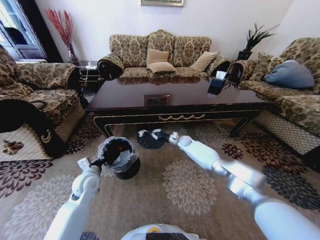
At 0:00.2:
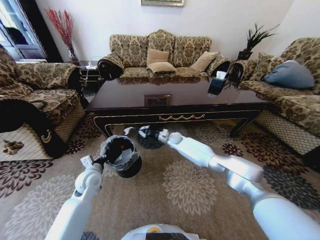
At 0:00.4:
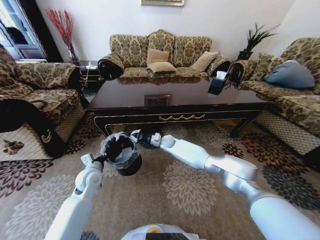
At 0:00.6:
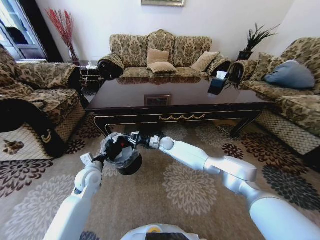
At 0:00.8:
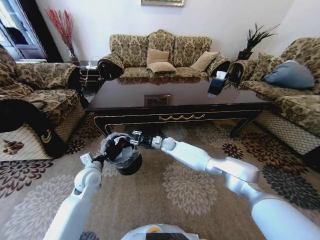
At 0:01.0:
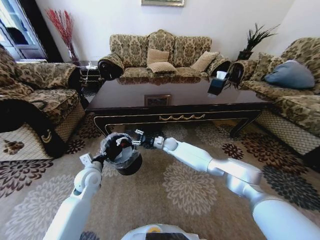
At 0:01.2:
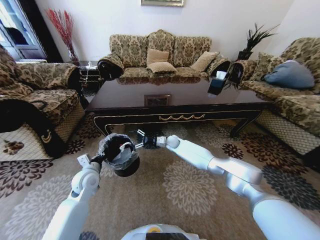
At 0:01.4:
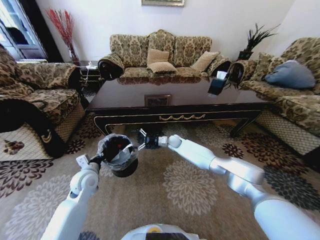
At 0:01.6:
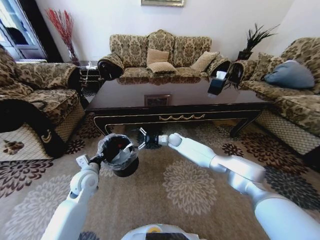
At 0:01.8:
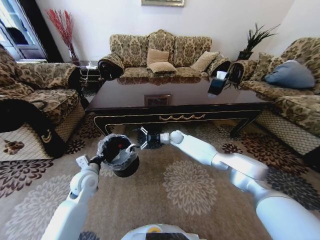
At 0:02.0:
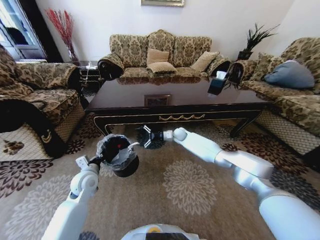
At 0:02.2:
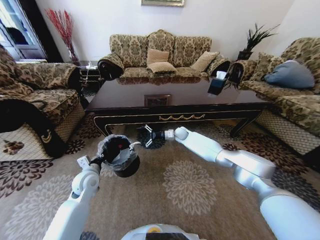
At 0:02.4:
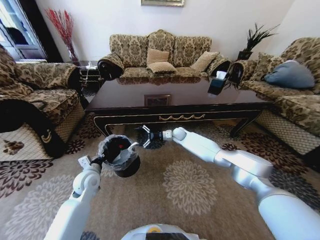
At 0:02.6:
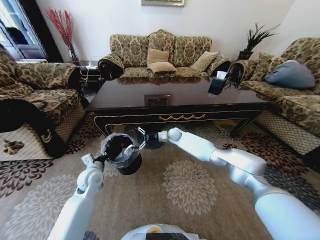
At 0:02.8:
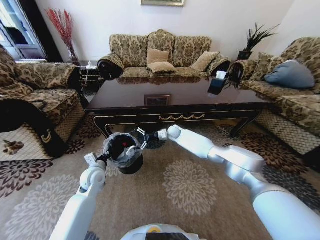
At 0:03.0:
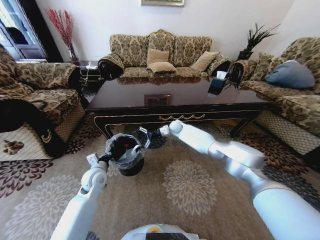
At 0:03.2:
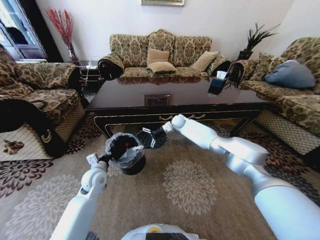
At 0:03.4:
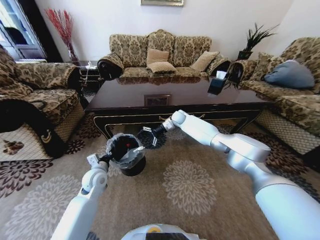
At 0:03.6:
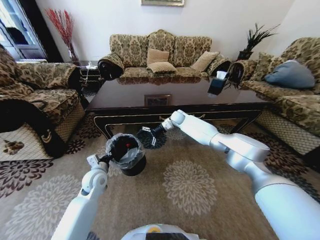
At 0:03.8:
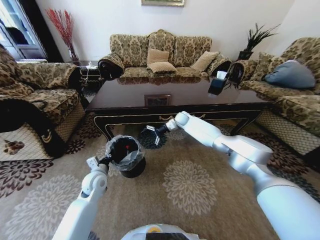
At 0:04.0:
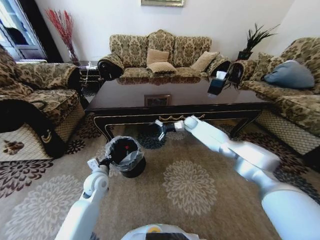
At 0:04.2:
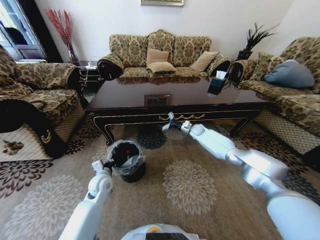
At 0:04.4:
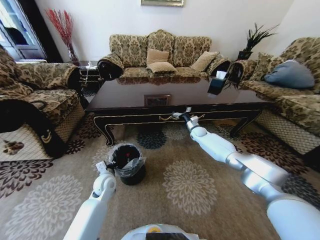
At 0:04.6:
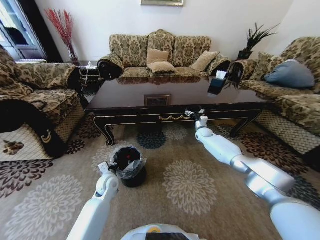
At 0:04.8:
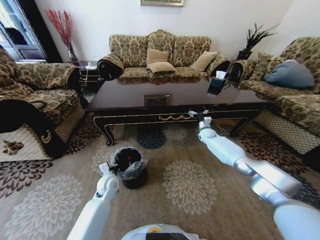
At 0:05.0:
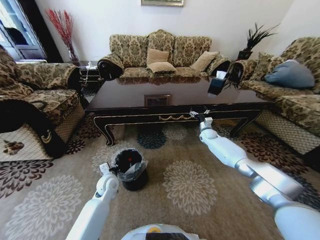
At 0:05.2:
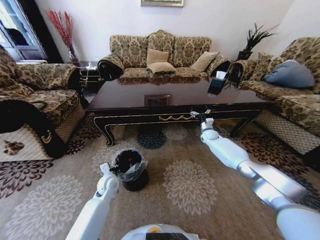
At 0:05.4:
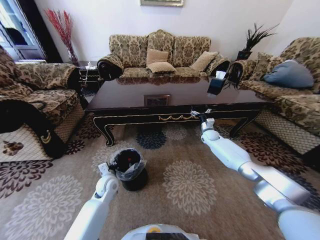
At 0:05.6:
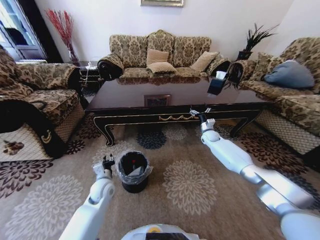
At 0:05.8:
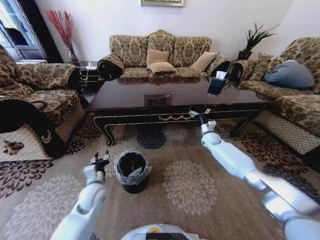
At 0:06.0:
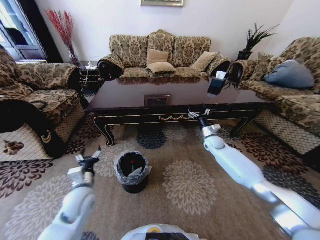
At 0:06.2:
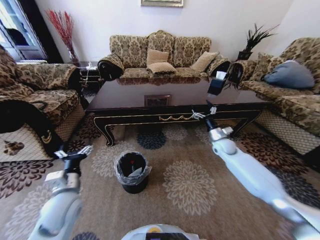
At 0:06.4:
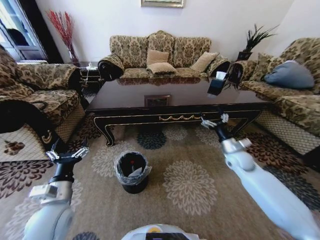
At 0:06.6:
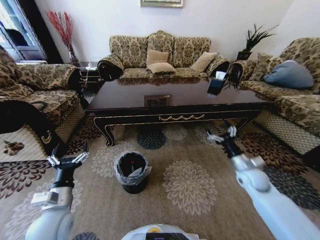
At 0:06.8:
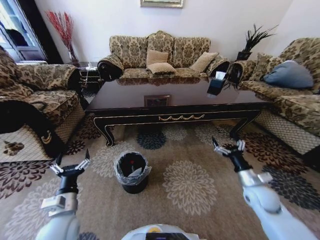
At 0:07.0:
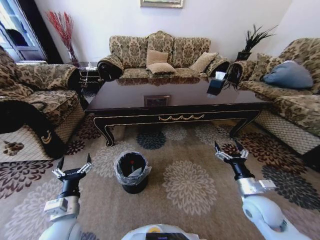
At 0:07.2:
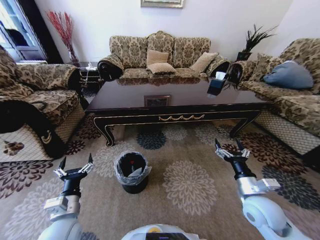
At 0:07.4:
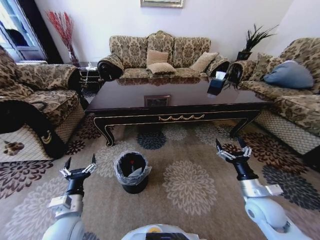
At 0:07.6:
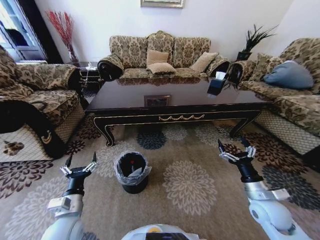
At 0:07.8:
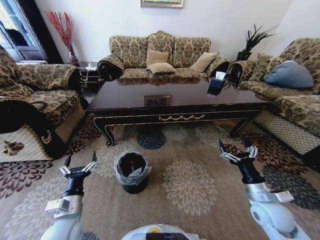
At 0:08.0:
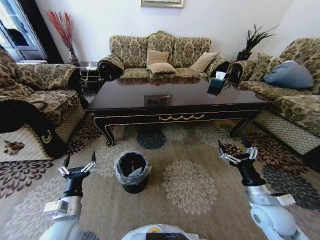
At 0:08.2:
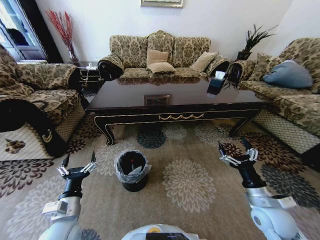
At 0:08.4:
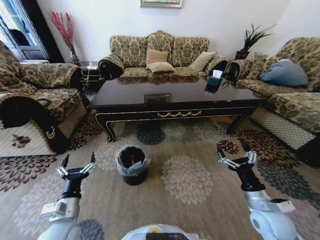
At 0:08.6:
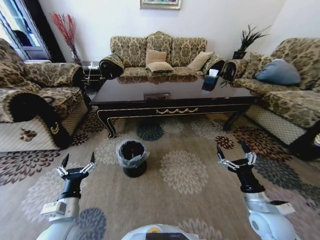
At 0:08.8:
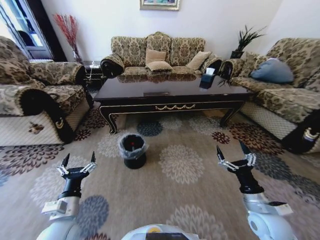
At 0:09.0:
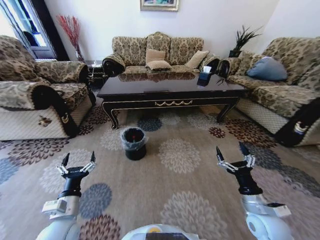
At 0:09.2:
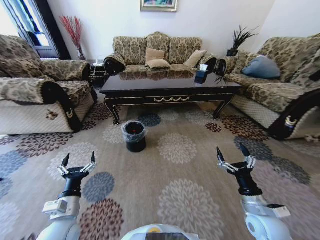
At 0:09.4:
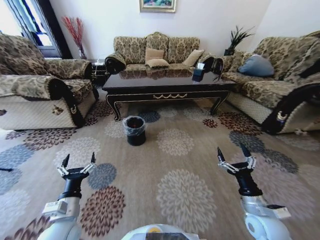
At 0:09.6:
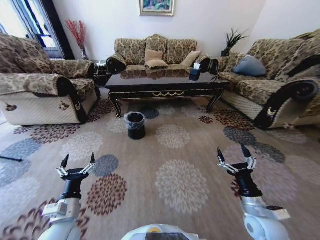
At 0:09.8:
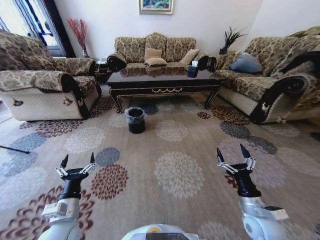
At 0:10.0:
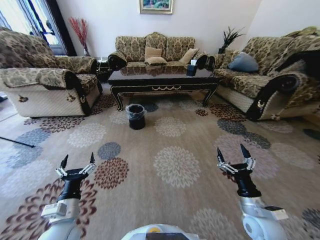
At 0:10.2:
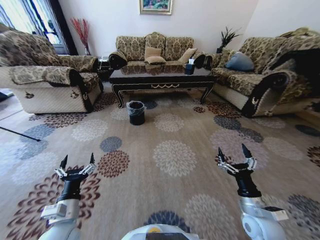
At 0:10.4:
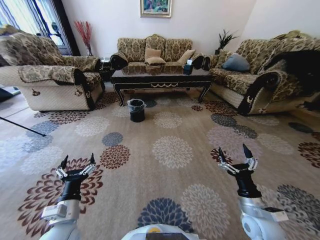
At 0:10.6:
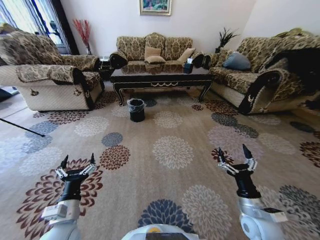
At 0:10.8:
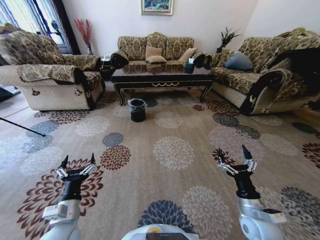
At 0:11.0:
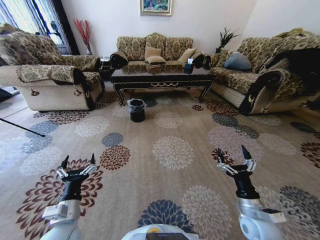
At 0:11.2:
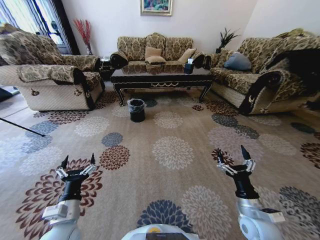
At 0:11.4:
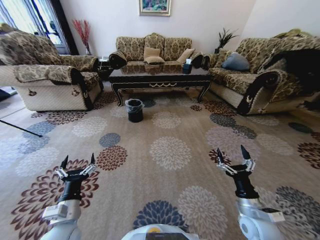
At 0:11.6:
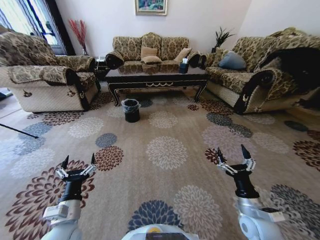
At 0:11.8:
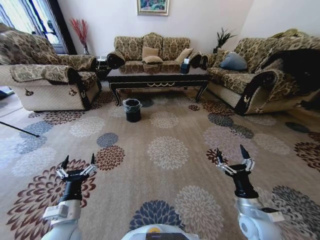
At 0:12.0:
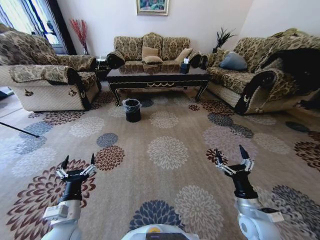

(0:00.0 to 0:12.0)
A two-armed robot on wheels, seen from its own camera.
Task of the whole recording: Move to the front of the table and pick up the trash from the floor, then place it into the trash bin.
0:00.0 - 0:01.6: The right gripper travels to the left by roughly 5 cm, and opens up.
0:01.6 - 0:03.0: The right gripper travels upward by roughly 5 cm.
0:03.0 - 0:04.4: The left gripper travels downward by approximately 5 cm. The right gripper travels to the right by roughly 15 cm.
0:04.4 - 0:06.0: The right gripper shifts roughly 10 cm backward, while the left gripper travels backward and upward by some 10 cm, and opens.
0:06.0 - 0:07.6: The right gripper is displaced backward by roughly 35 cm. Meanwhile the left gripper goes some 10 cm backward.

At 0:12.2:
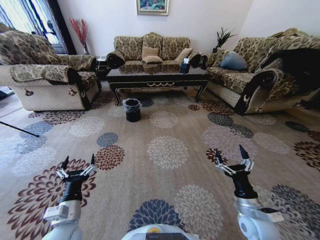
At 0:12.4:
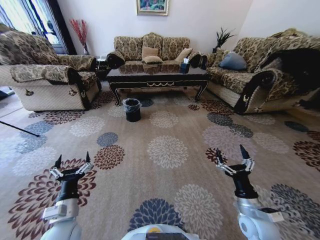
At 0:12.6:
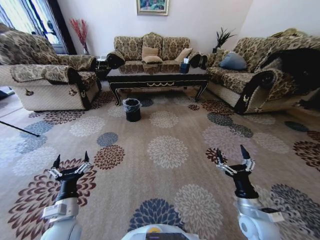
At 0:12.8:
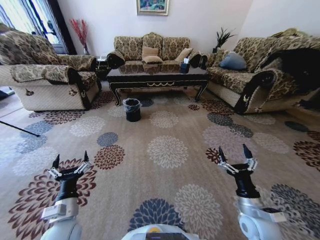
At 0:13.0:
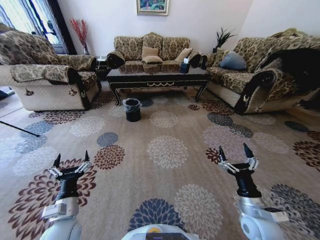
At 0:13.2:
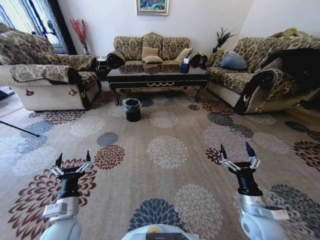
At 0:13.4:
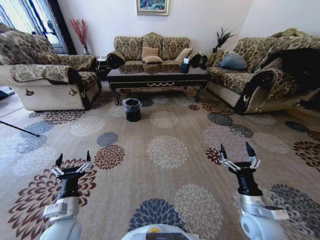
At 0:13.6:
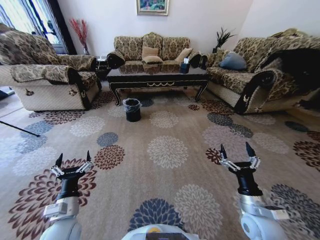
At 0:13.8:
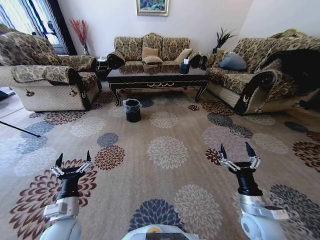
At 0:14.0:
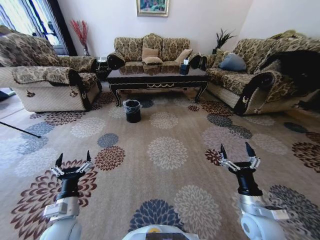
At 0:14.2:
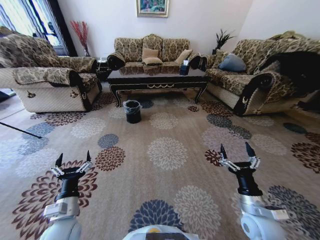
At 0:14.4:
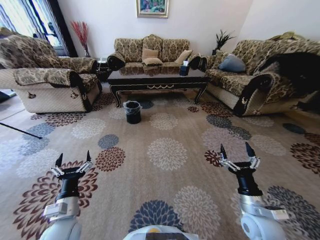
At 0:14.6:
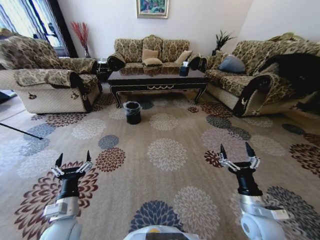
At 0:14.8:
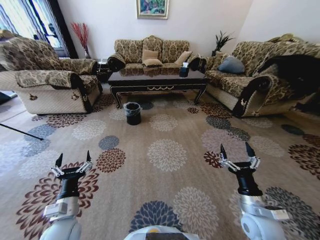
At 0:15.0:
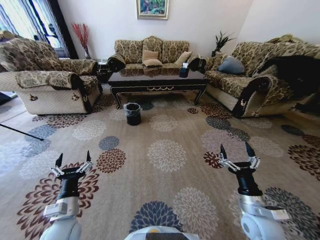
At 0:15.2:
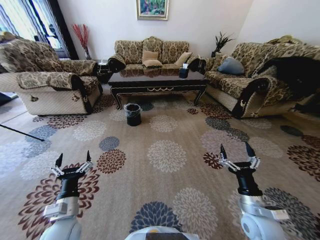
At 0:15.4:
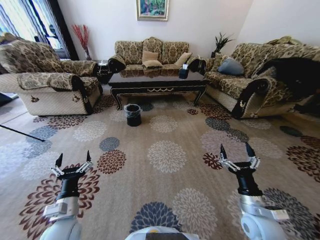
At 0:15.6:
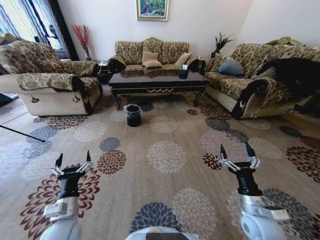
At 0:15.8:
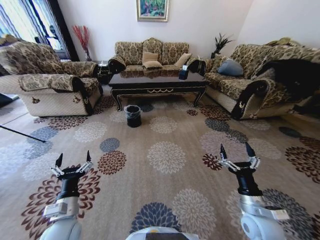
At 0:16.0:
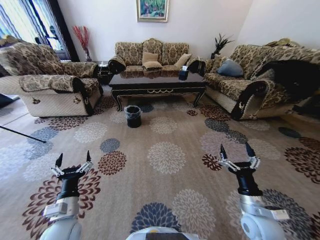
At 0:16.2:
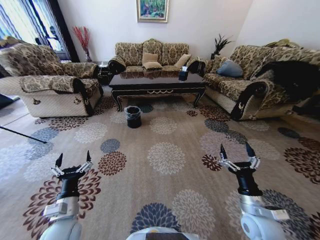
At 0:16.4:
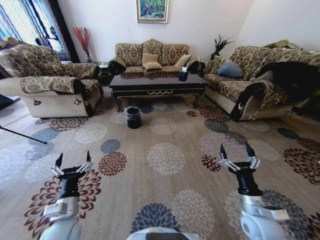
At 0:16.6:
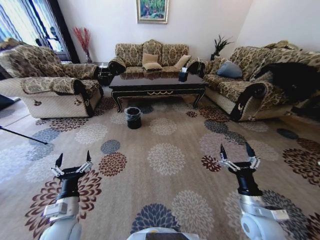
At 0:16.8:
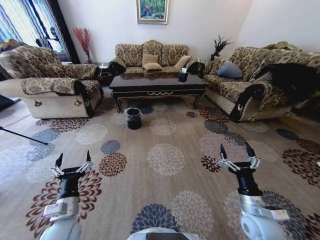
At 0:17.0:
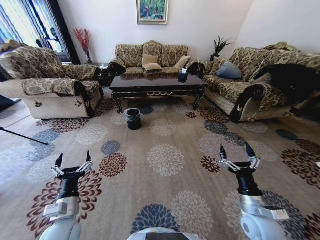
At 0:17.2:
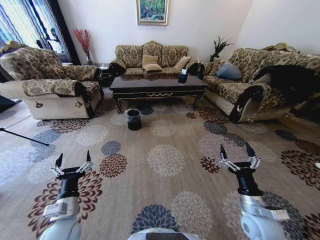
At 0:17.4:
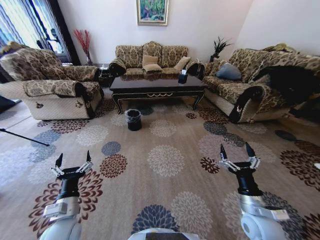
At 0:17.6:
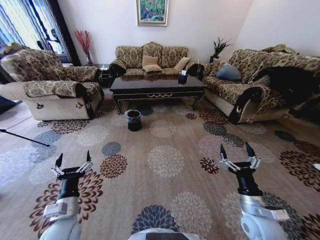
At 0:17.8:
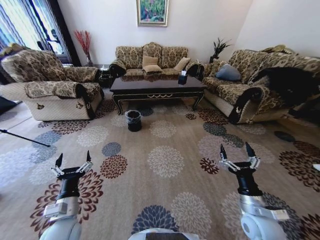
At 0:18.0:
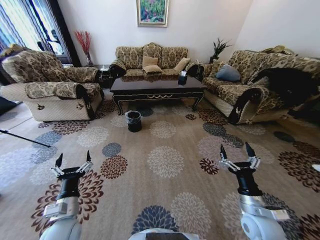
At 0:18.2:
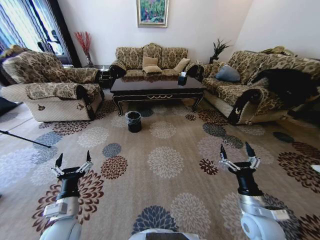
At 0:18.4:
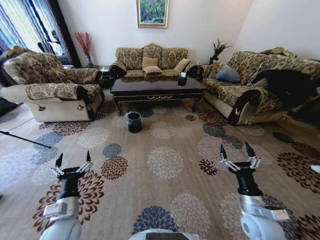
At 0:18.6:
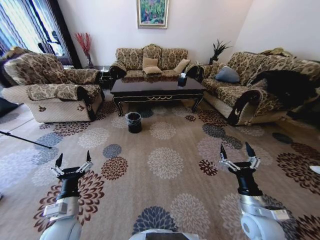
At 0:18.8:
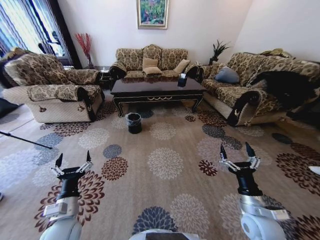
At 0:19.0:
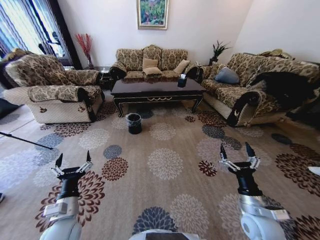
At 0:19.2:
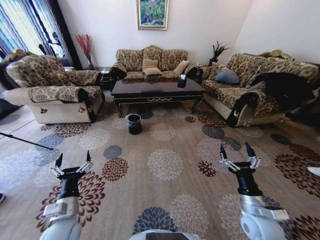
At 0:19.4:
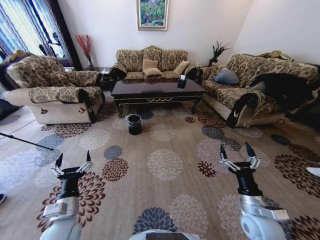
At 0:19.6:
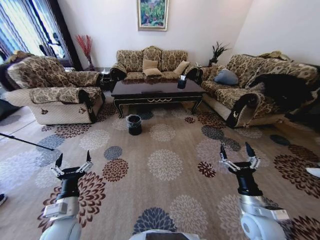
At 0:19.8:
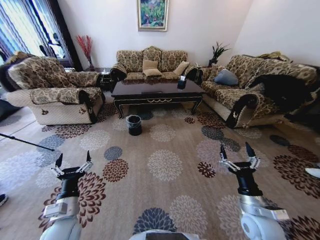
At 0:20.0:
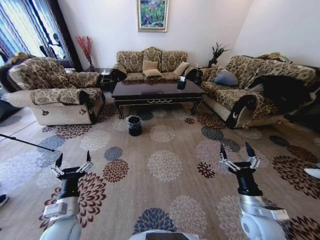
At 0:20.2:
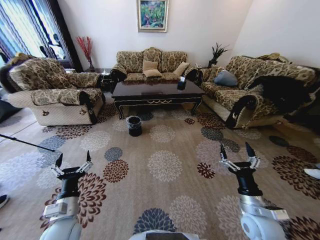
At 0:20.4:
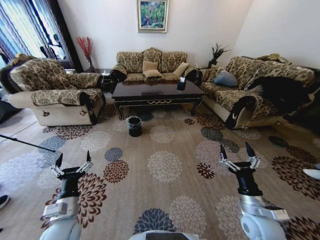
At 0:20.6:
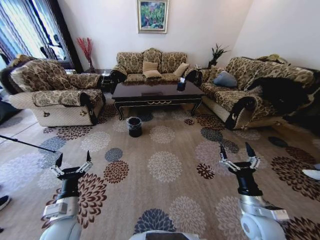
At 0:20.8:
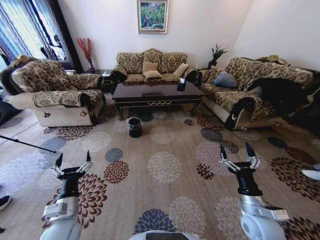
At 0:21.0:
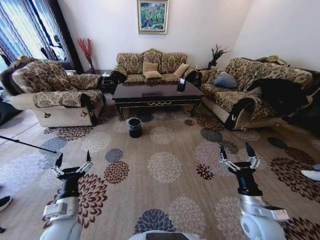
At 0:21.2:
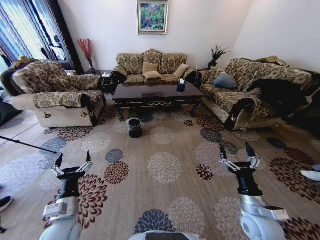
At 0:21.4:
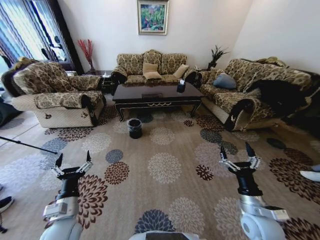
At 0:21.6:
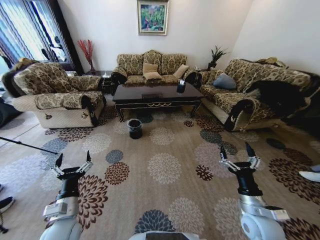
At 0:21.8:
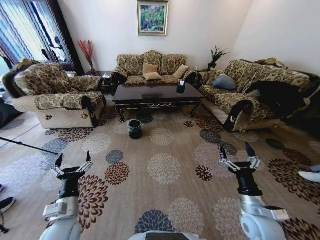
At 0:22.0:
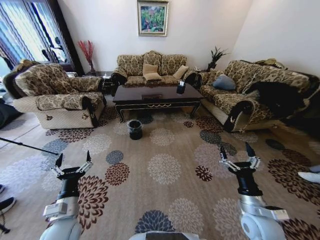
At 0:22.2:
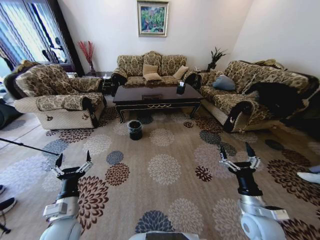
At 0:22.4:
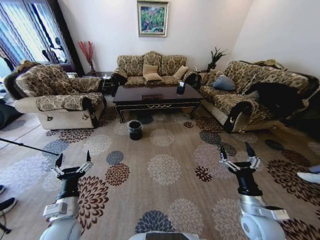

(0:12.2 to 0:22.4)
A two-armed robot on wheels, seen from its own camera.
Task of the whole recording: Move to the front of the table and pick up the trash from the floor, then place it into the trash bin.
0:12.2 - 0:13.6: The grippers stay close to where they were, moving slightly.
0:21.0 - 0:22.4: The two grippers keep their place.
